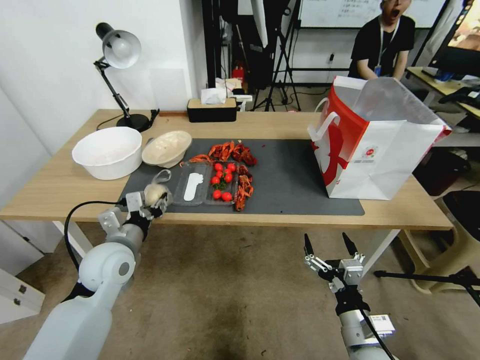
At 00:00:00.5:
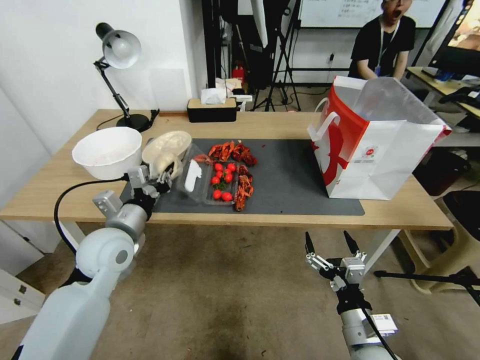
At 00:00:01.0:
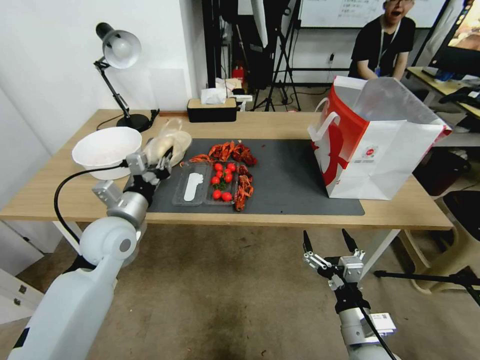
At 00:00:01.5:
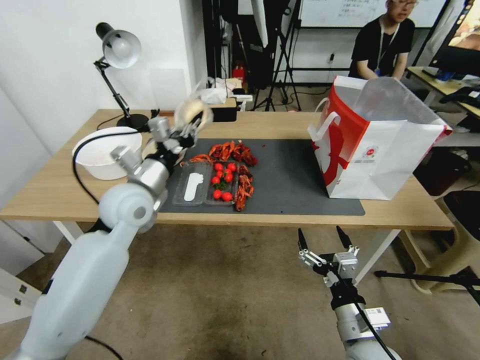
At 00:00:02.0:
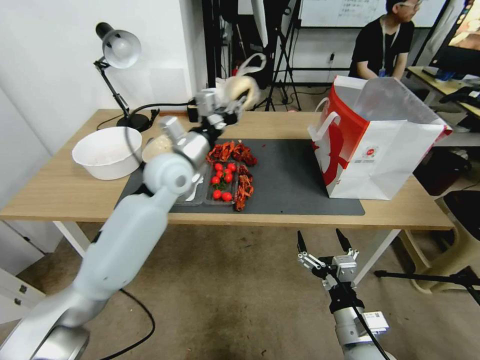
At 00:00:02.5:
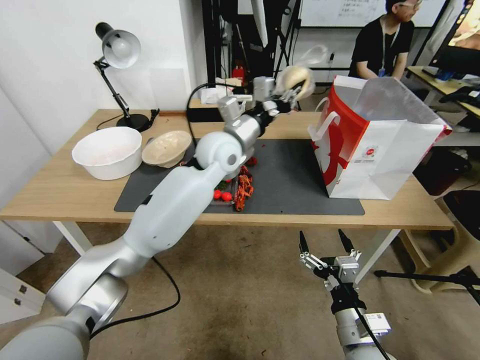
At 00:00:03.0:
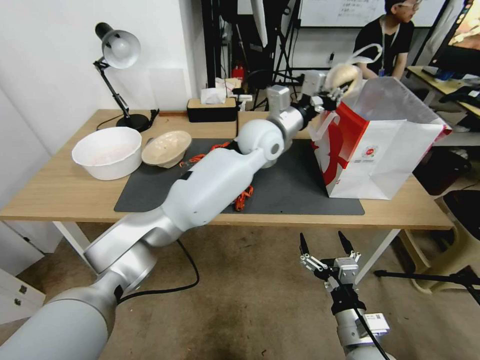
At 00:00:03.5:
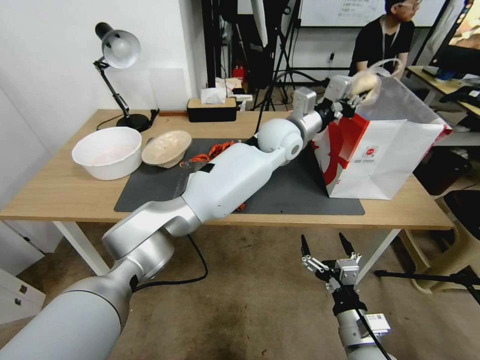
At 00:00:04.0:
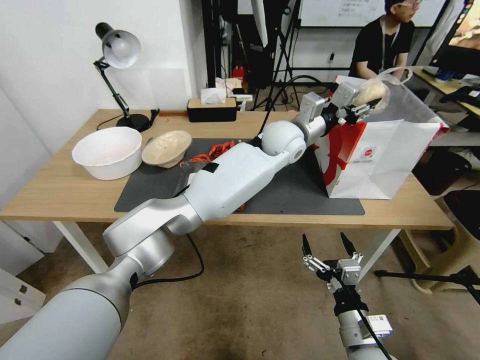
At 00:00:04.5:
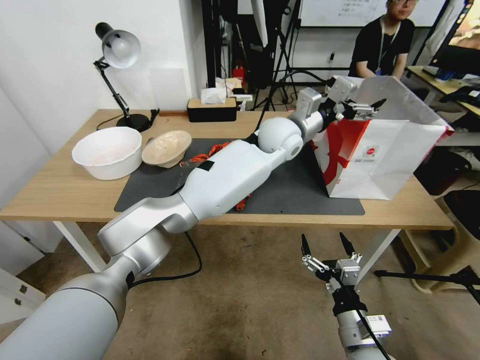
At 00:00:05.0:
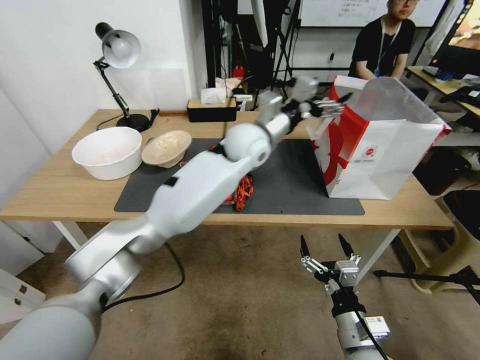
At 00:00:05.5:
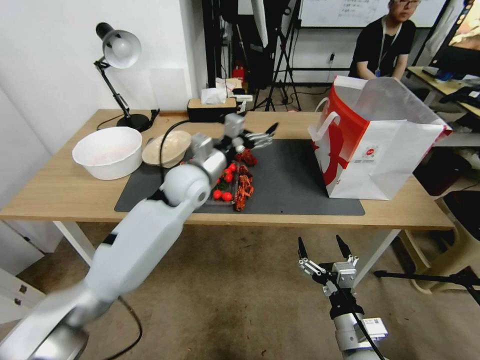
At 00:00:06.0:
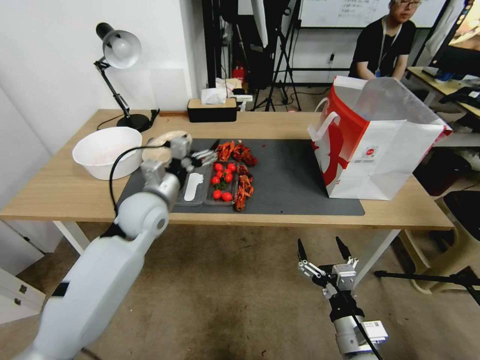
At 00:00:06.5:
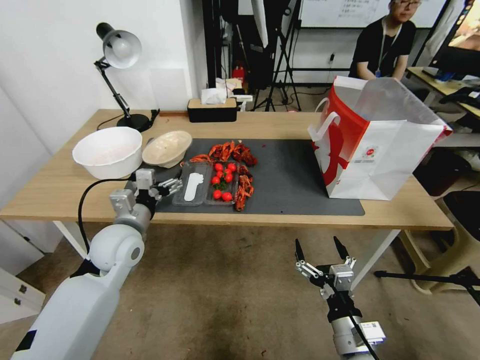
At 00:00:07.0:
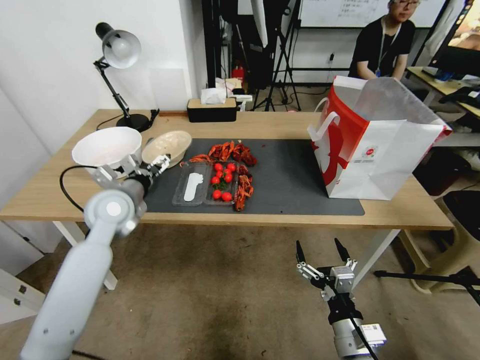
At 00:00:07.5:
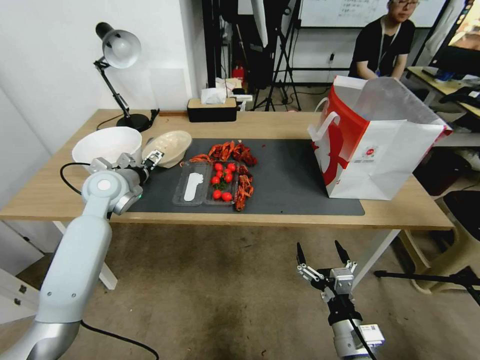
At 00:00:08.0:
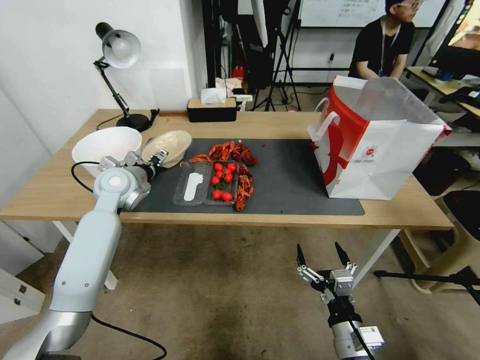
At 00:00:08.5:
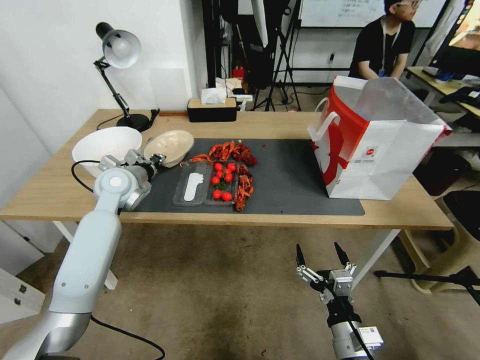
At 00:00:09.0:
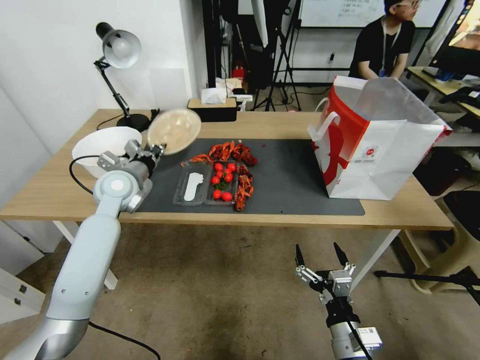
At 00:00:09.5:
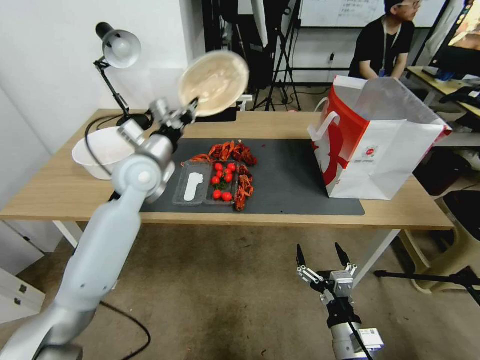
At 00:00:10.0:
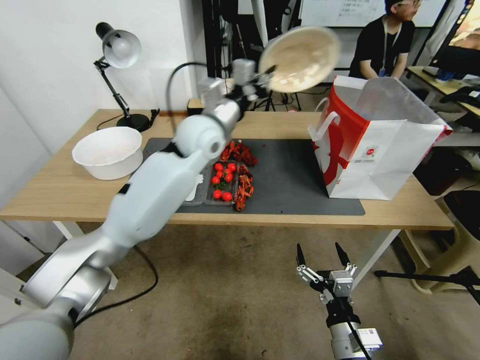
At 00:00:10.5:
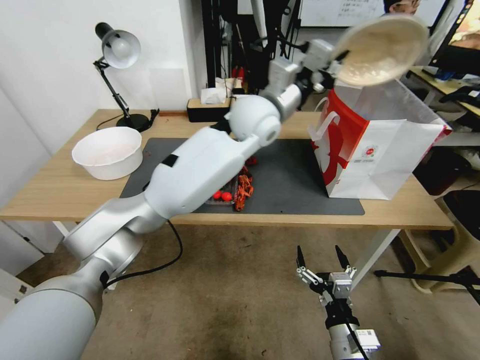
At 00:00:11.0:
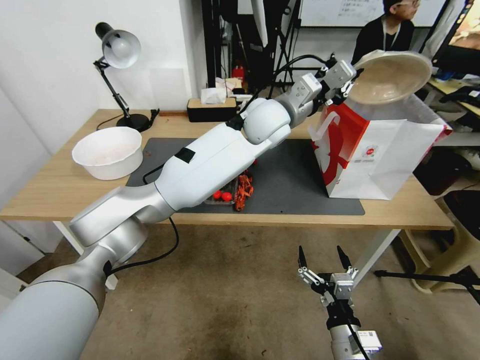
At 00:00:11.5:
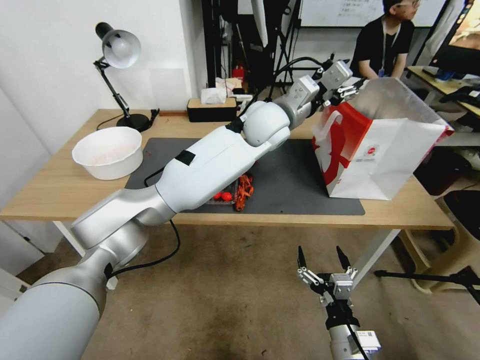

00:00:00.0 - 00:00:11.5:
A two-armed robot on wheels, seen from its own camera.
00:00:00.0 - 00:00:02.0: The left gripper travels forward, upward and to the right by about 25 cm, and closes.
00:00:02.0 - 00:00:04.0: The left gripper shifts some 25 cm to the right, and opens up.
00:00:04.0 - 00:00:06.0: The left gripper is displaced to the left and backward by roughly 35 cm, and opens.
00:00:06.0 - 00:00:07.5: The left gripper goes about 10 cm to the left.
00:00:07.5 - 00:00:09.5: The left gripper goes about 10 cm to the right, and closes its fingers.
00:00:09.5 - 00:00:11.5: The left gripper shifts some 25 cm to the right, and opens up.

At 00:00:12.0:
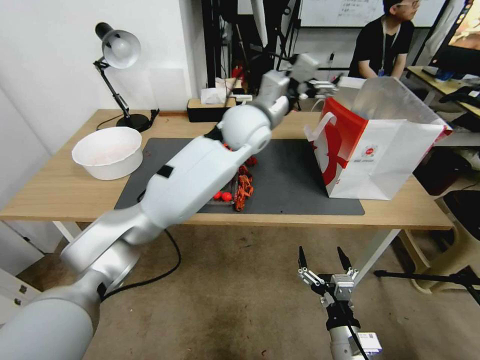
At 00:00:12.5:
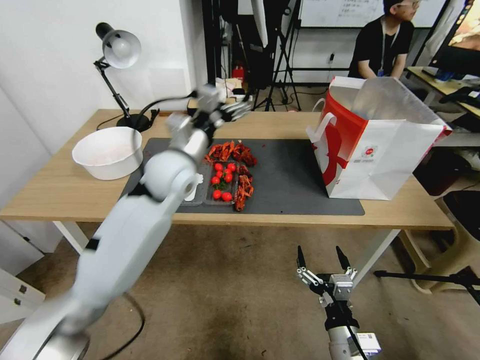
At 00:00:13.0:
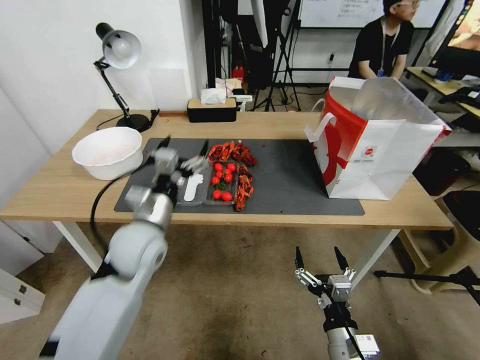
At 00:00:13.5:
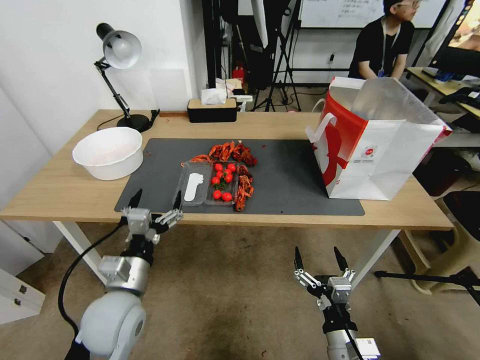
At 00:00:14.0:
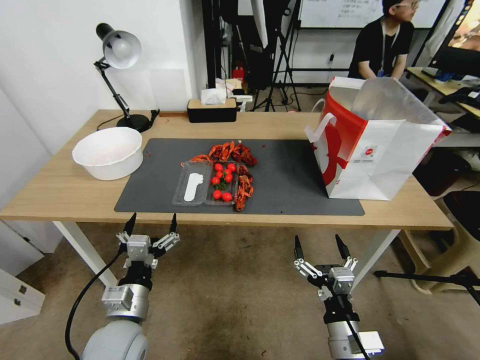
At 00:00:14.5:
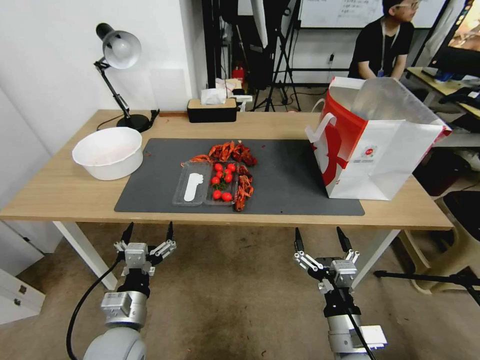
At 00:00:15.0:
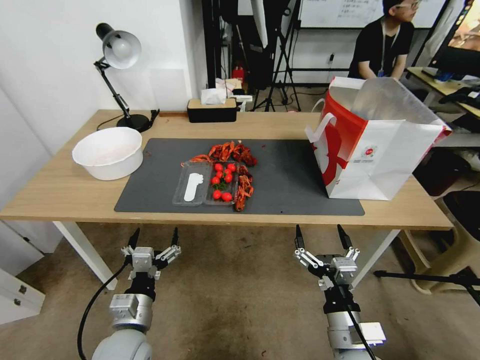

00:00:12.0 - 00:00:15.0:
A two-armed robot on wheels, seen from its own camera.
00:00:12.0 - 00:00:13.5: The left gripper moves backward, to the left and downward, roughly 40 cm.
00:00:13.5 - 00:00:15.0: The left gripper heads downward, covering about 10 cm. Meanwhile the right gripper ends up some 5 cm from where it was.

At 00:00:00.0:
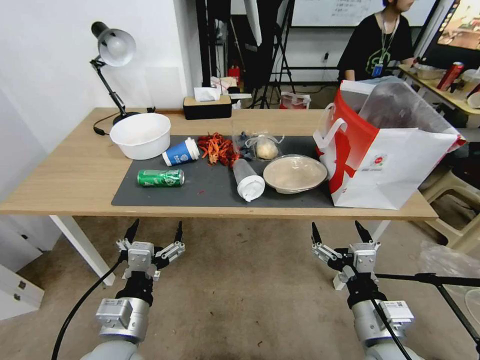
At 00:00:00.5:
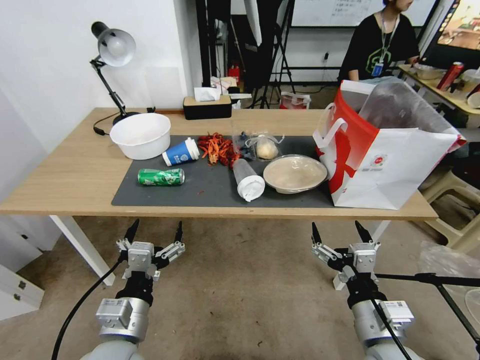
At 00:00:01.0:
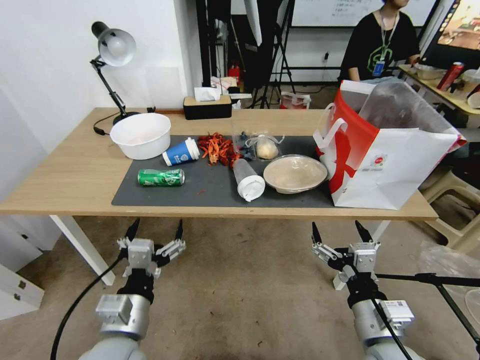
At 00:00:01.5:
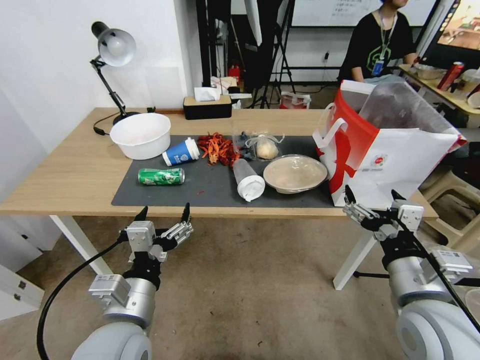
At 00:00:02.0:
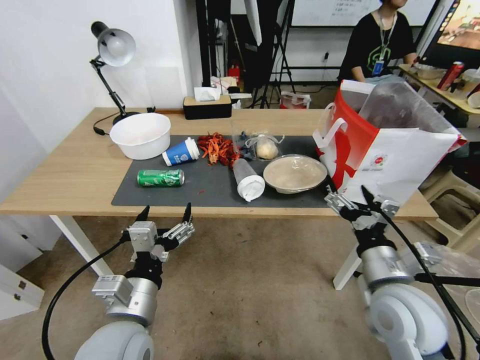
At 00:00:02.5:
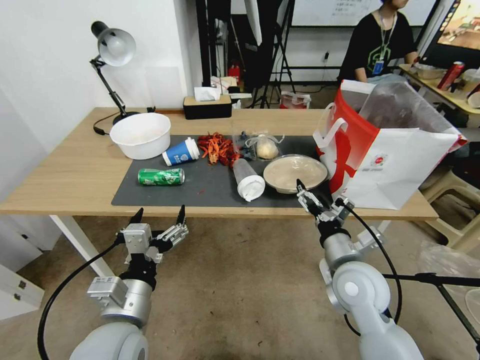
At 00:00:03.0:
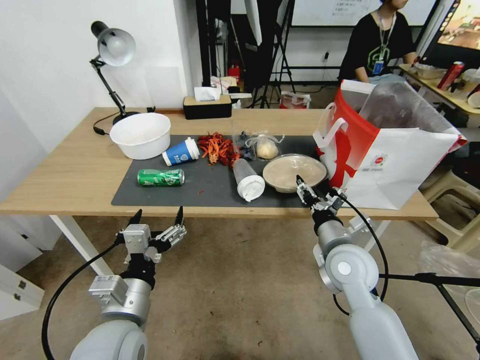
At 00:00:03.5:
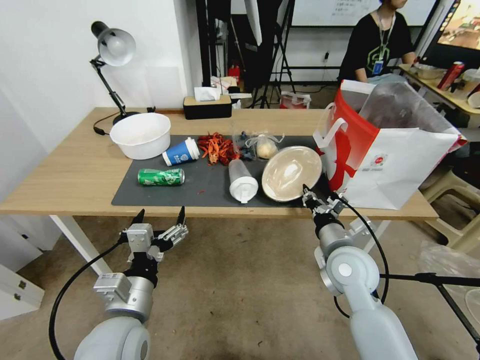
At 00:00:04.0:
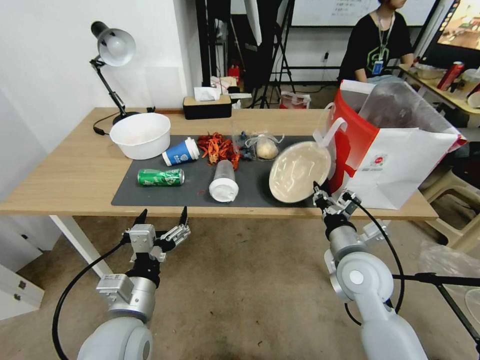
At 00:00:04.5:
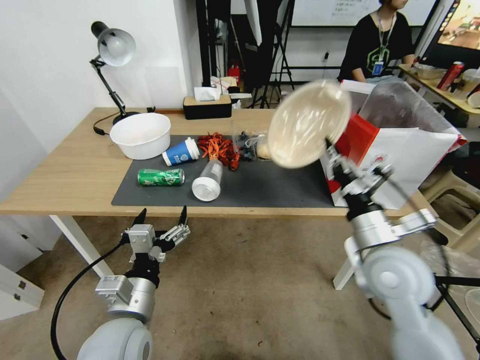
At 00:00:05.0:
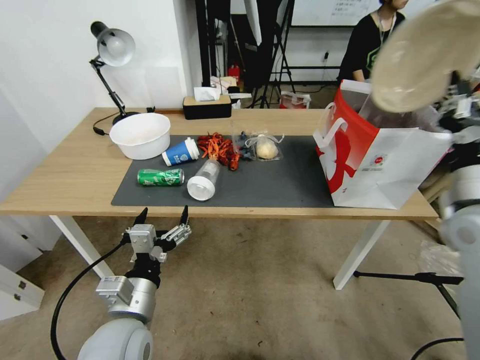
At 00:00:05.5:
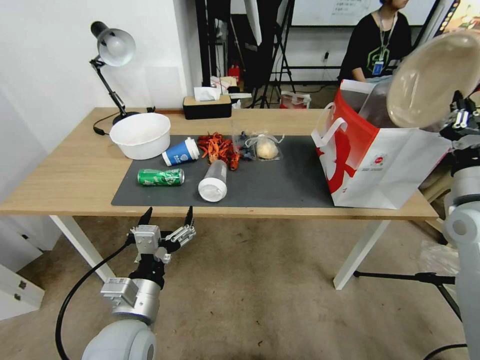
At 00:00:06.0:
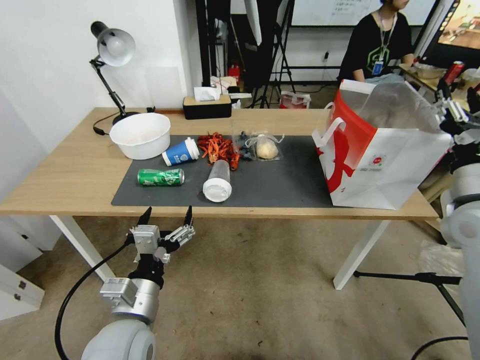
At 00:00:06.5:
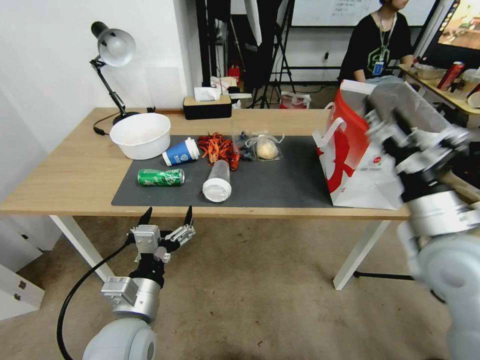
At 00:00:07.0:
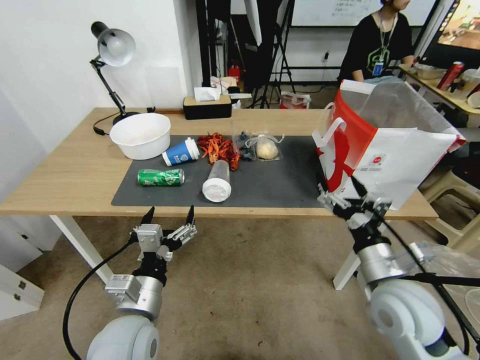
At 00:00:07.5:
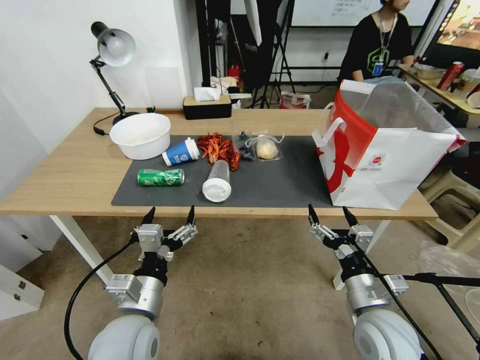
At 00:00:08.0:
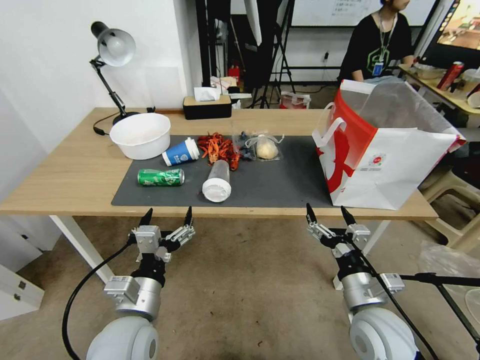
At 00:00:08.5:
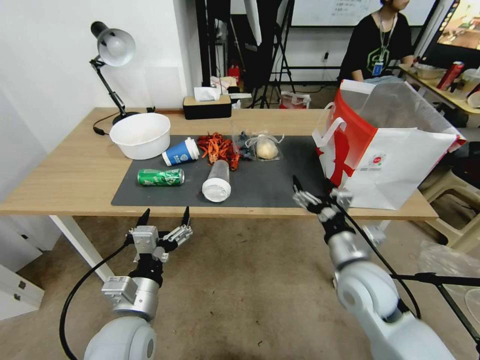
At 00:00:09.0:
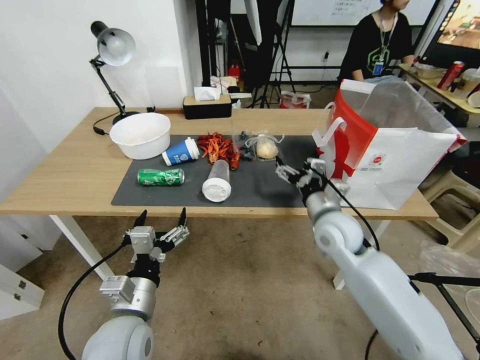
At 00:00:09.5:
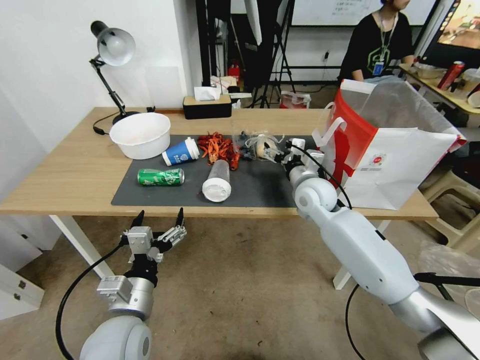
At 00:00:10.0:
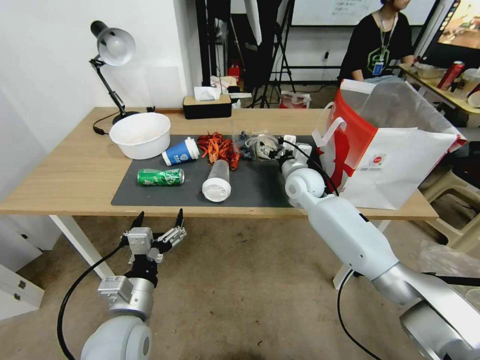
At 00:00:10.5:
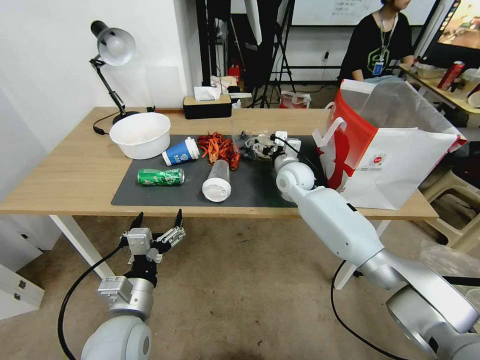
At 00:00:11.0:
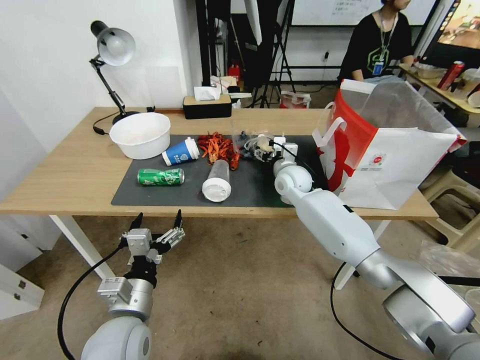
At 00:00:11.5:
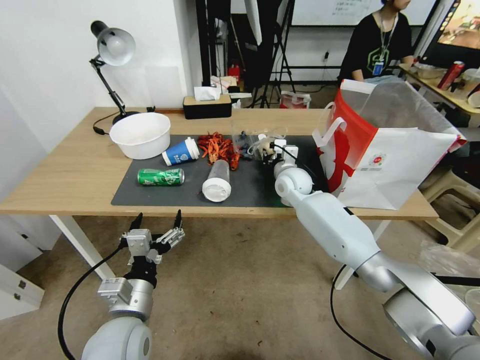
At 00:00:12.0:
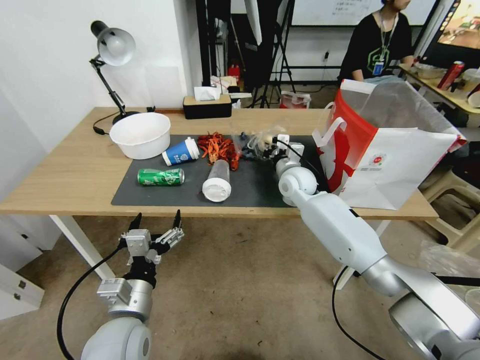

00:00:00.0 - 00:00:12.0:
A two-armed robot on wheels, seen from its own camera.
00:00:02.0 - 00:00:04.0: The right gripper shifts some 5 cm forward, and closes.
00:00:04.0 - 00:00:06.0: The right gripper travels to the right and upward by some 20 cm, and opens.
00:00:06.0 - 00:00:08.0: The right gripper moves downward, to the left and backward, some 25 cm, and opens up.
00:00:08.0 - 00:00:10.0: The right gripper heads forward, covering about 30 cm.
00:00:10.0 - 00:00:12.0: The right gripper closes its fingers.
